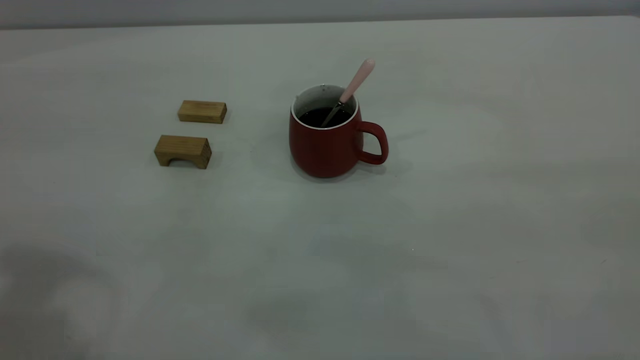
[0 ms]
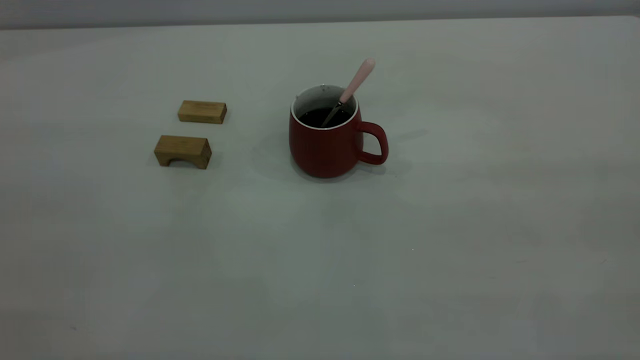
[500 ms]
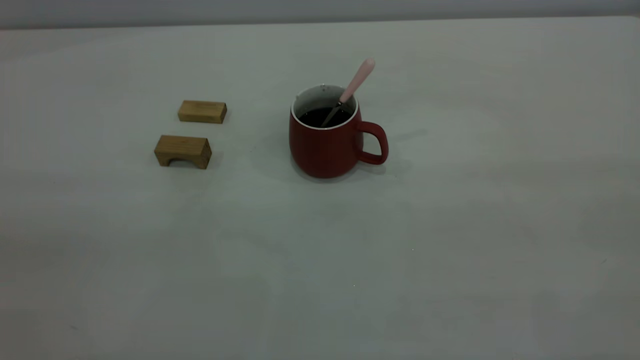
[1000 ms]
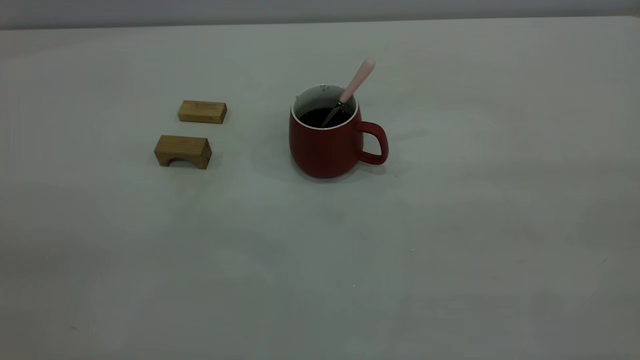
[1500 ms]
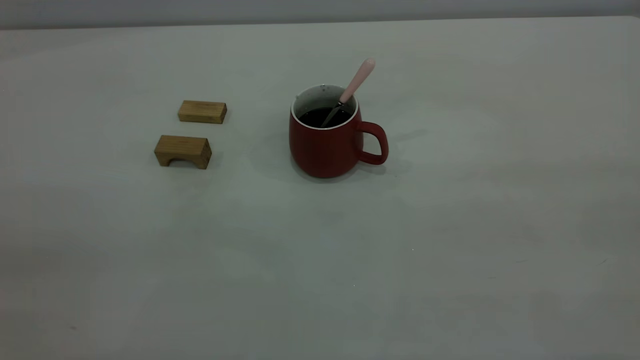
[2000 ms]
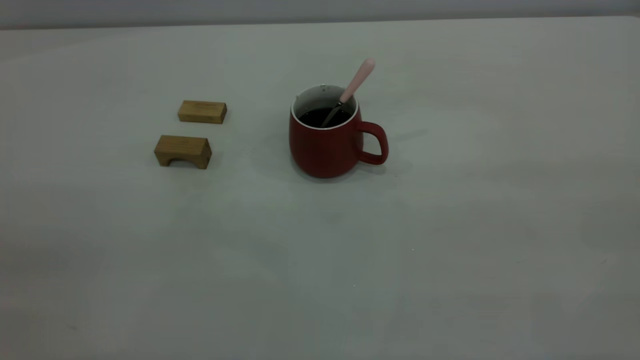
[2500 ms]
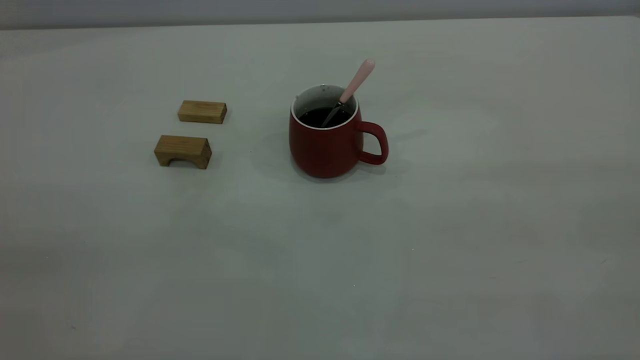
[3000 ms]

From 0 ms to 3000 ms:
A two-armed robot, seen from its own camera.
From 1500 ms to 3000 ms: Neither gripper changes place.
